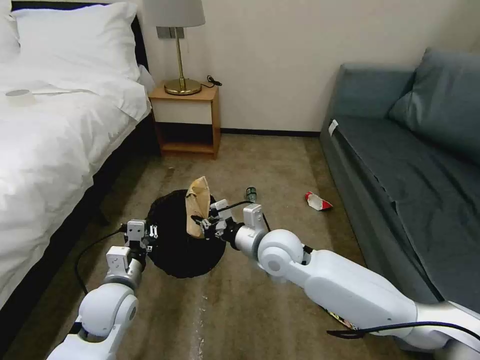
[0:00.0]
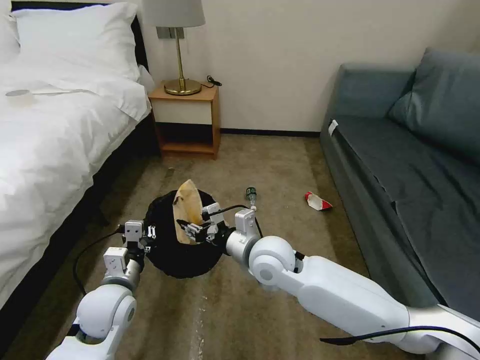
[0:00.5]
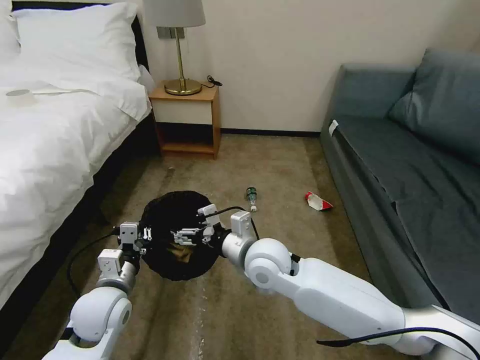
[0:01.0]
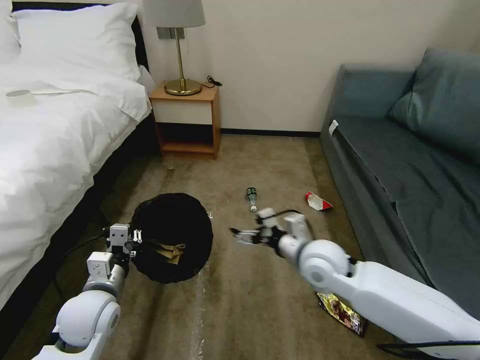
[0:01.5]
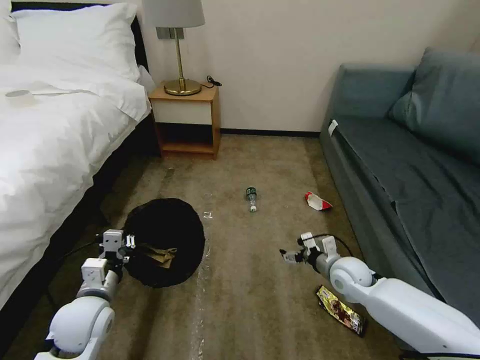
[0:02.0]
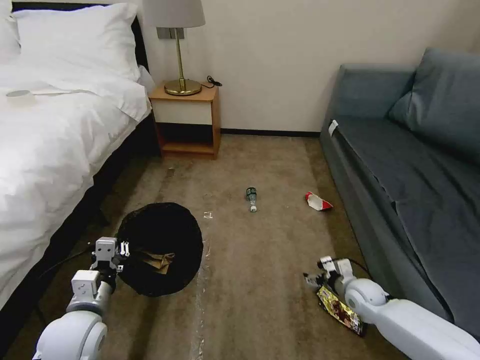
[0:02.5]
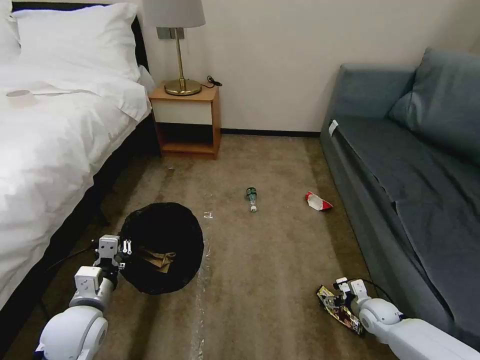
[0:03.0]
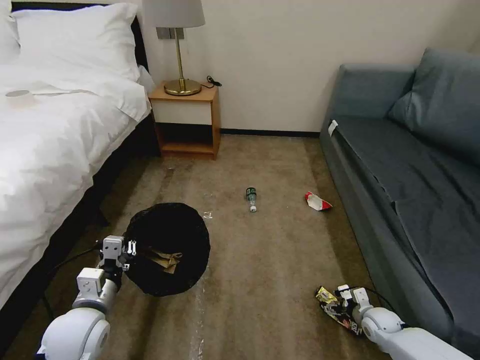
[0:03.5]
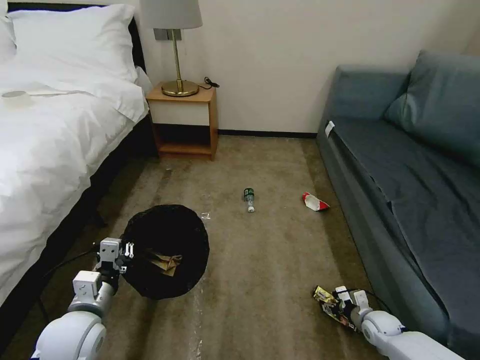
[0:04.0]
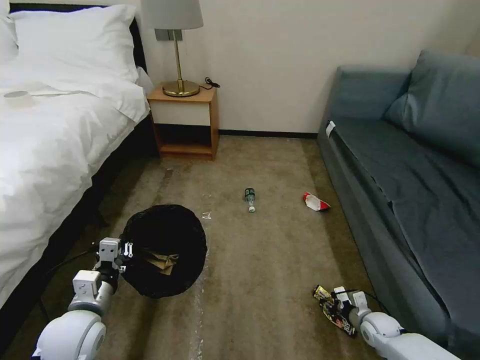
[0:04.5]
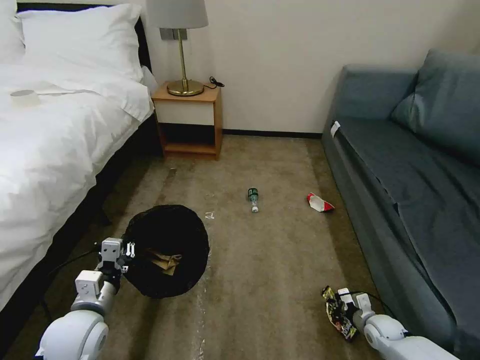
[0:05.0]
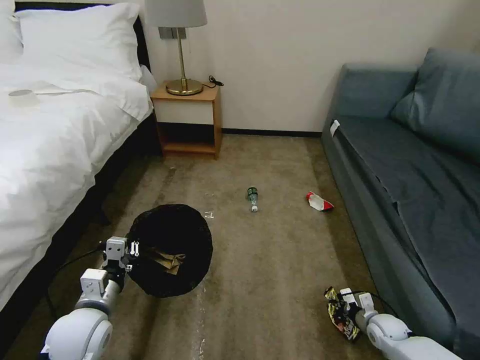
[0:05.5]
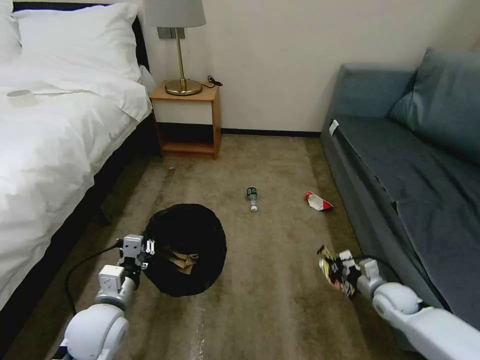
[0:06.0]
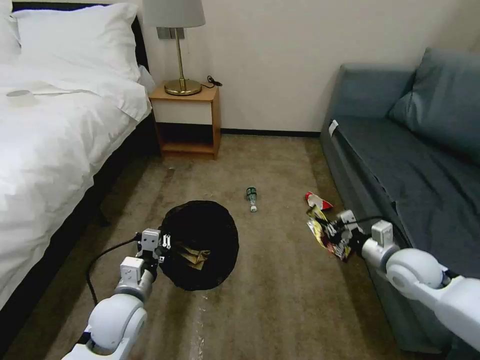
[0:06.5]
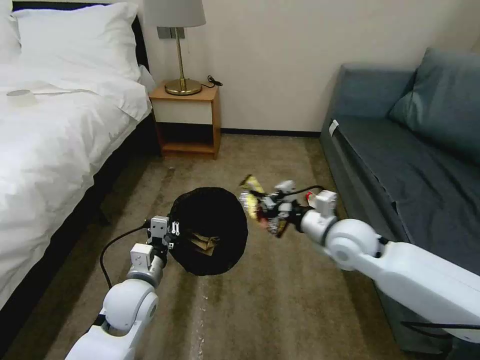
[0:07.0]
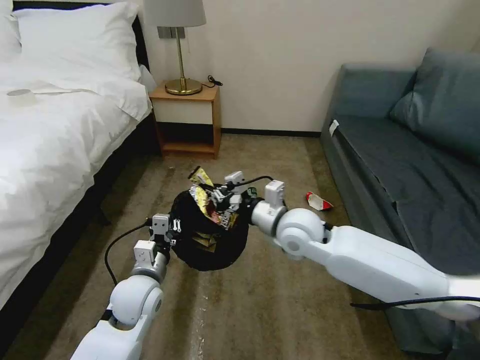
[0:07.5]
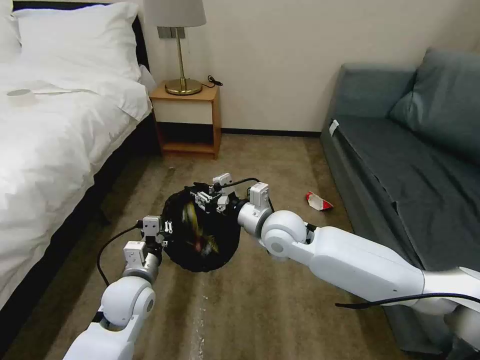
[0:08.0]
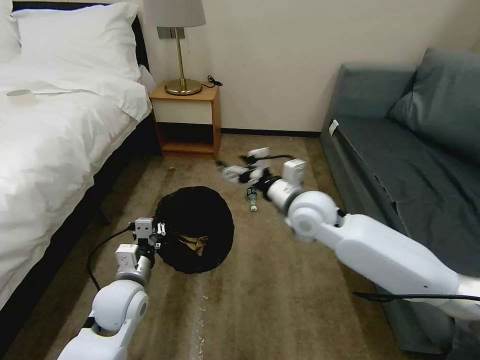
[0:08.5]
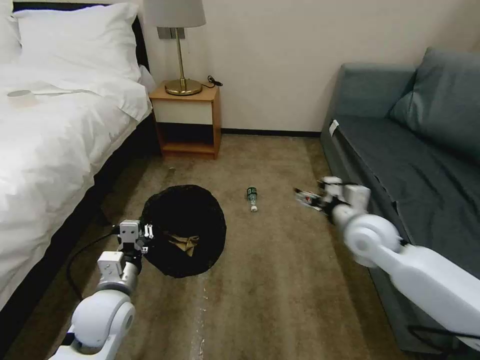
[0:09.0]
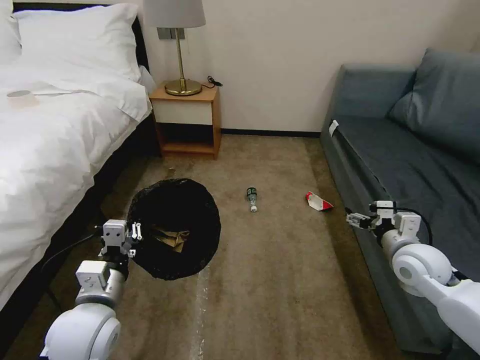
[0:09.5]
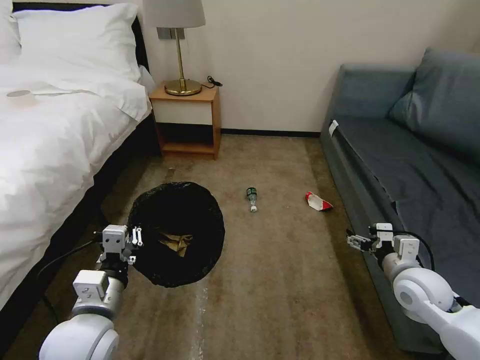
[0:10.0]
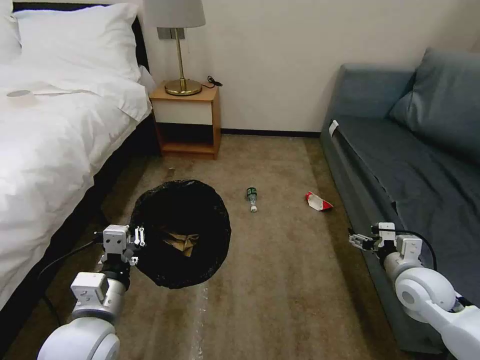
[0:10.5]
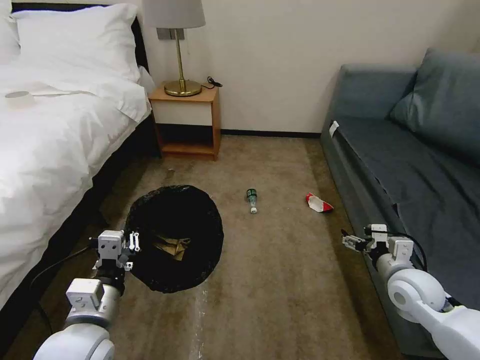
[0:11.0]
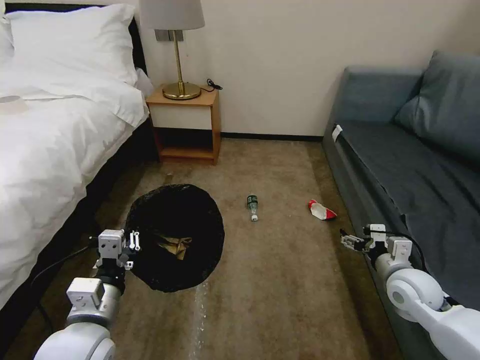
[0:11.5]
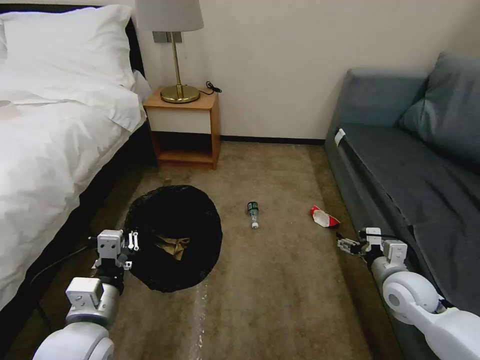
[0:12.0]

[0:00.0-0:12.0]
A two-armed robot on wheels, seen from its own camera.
Task of the whole recording: Pick up the trash bin, then pick up the garbage on the floor and place it into the trash bin.
0:00.0 to 0:02.0: The left gripper changes place by roughly 5 cm. The right gripper moves to the right and downward, approximately 25 cm, and opens.
0:02.0 to 0:04.0: The right gripper is displaced downward, to the right and backward by about 20 cm.
0:04.0 to 0:06.0: The right gripper is displaced upward by roughly 10 cm, and closes its fingers.
0:06.0 to 0:08.0: The left gripper travels forward by roughly 5 cm; the right gripper moves to the left and upward, roughly 40 cm.
0:08.0 to 0:10.0: The right gripper is displaced to the right by roughly 30 cm, and opens. Meanwhile the left gripper moves backward and upward, about 10 cm.
0:10.0 to 0:12.0: There are only small adjustments of the grippers.

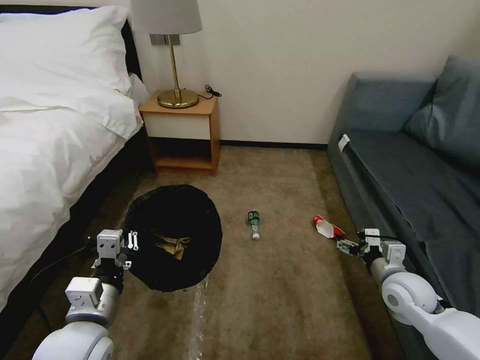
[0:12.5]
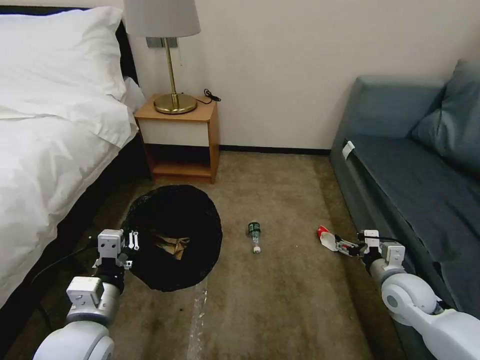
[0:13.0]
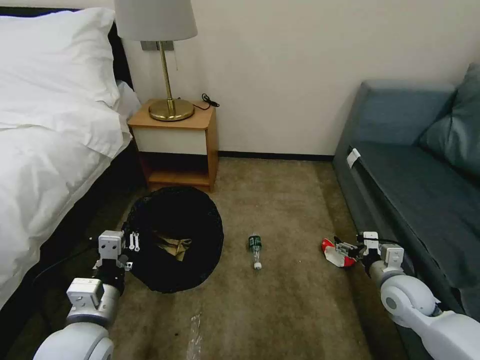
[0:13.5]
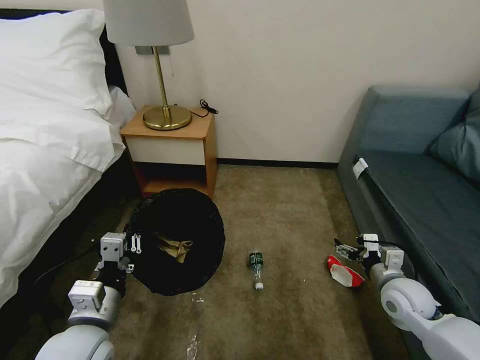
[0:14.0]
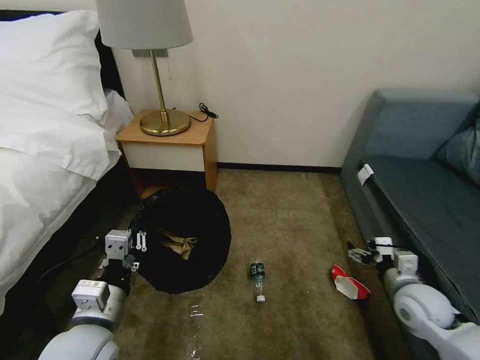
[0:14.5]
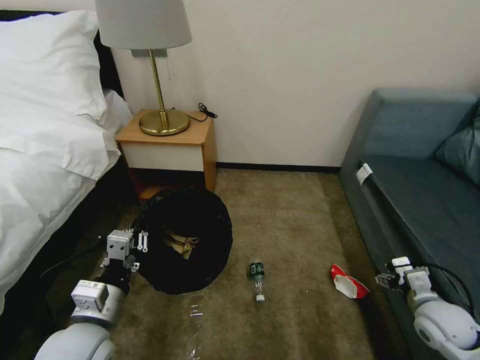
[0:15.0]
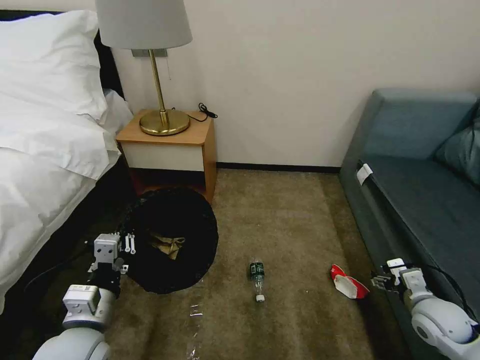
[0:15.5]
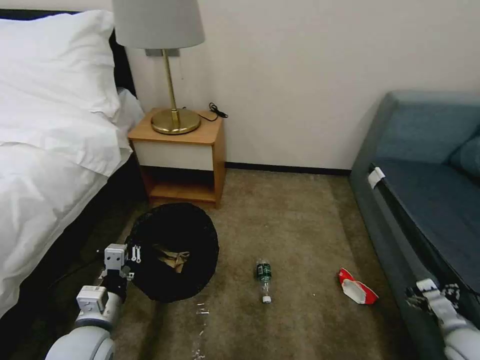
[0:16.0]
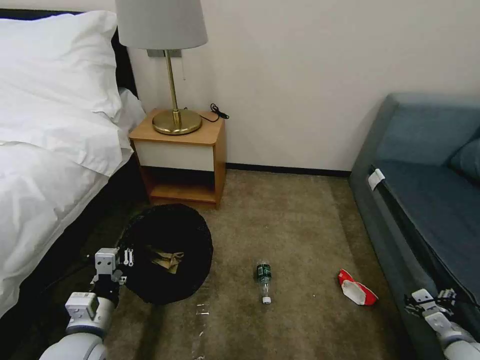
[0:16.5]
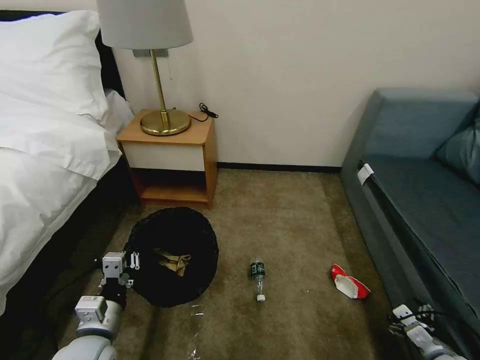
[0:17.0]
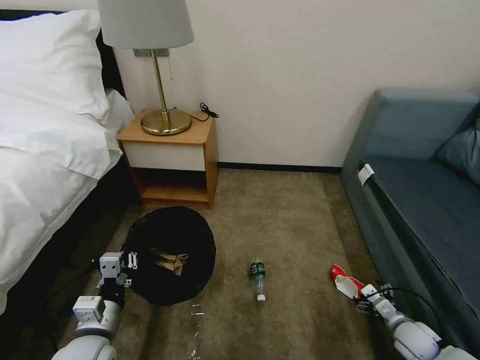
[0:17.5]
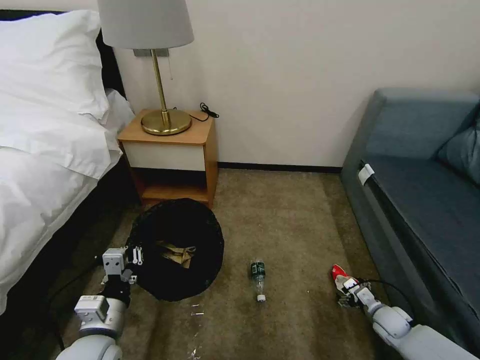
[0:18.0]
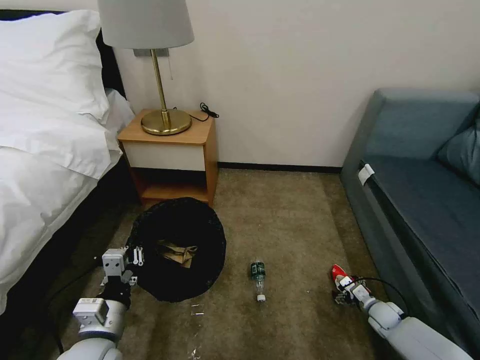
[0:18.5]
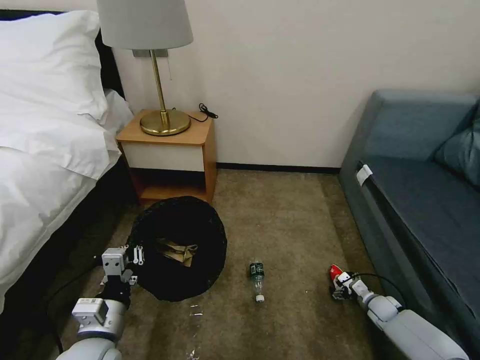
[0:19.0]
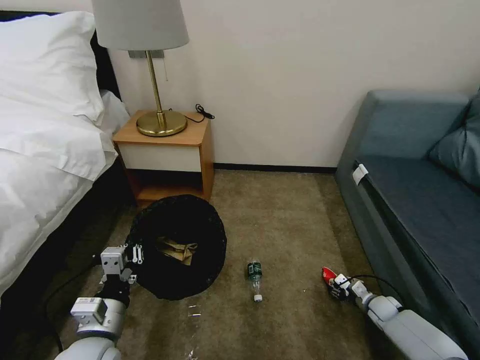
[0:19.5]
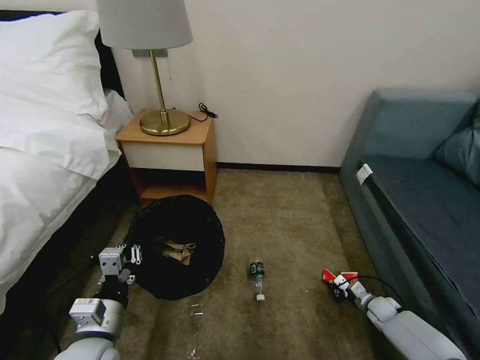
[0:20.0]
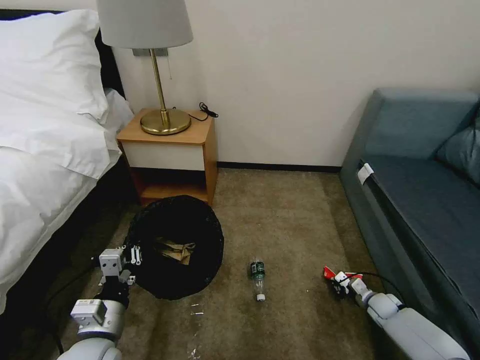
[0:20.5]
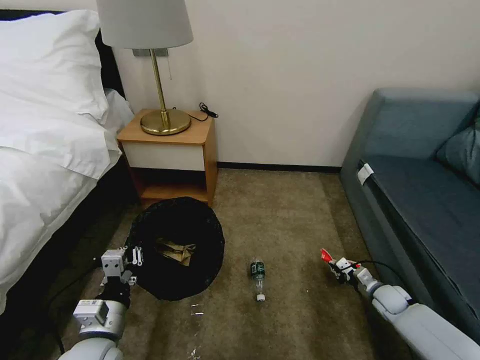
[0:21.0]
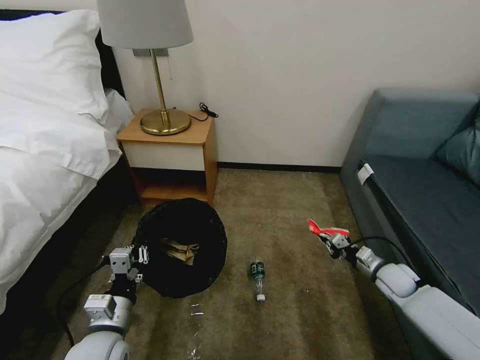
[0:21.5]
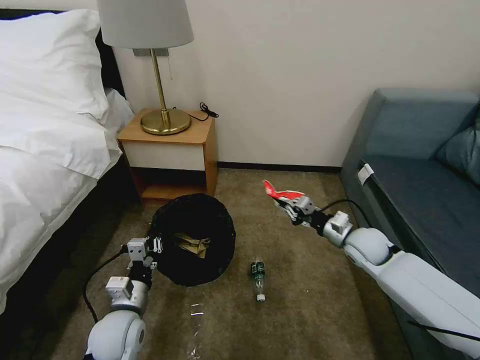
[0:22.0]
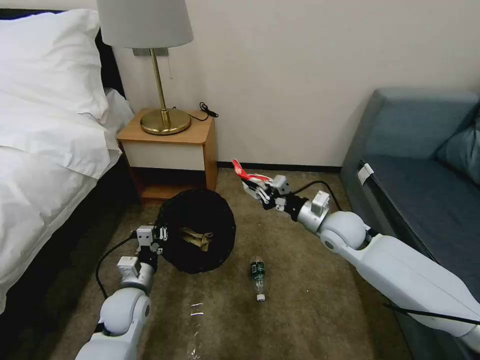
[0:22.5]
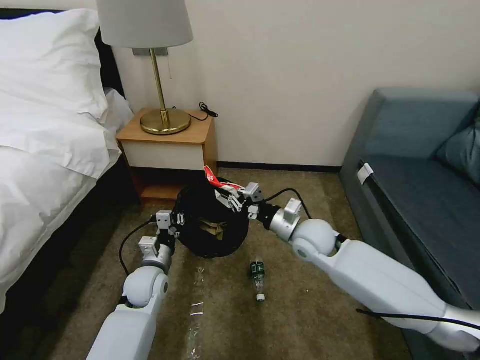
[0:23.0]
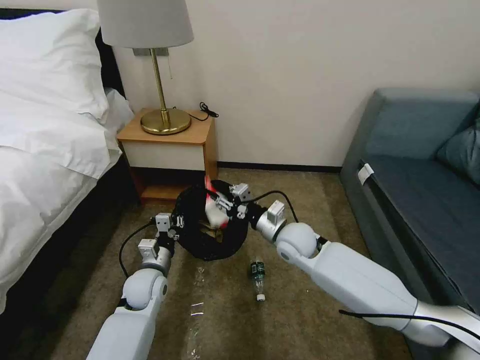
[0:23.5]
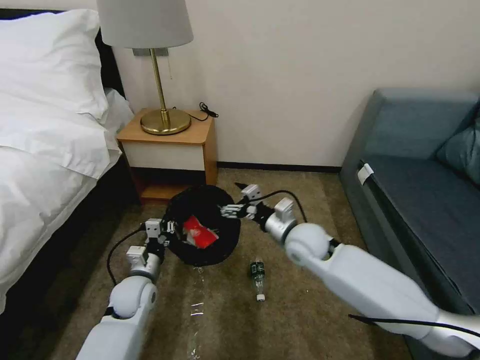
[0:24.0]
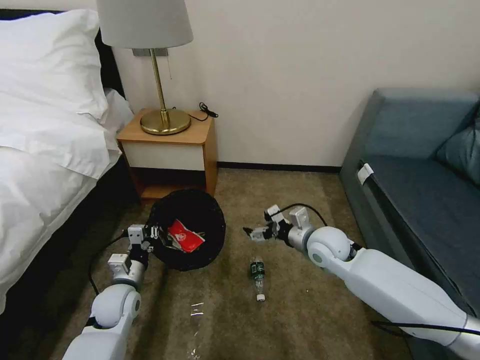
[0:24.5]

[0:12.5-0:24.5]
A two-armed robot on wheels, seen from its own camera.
Task of the whole recording: Pick up the trash bin, then pick up the garbage on the floor and place it into the trash bin.
0:14.5 to 0:16.5: The left gripper goes approximately 5 cm downward, while the right gripper goes some 20 cm to the right, downward and backward.
0:16.5 to 0:18.5: The right gripper travels forward, downward and to the left by about 20 cm.
0:18.5 to 0:20.5: The right gripper closes up.
0:20.5 to 0:22.5: The right gripper is displaced upward and to the left by about 35 cm. Meanwhile the left gripper is displaced forward and downward by about 15 cm.
0:22.5 to 0:24.5: The right gripper goes to the left and returns, roughly 10 cm each way, and opens.

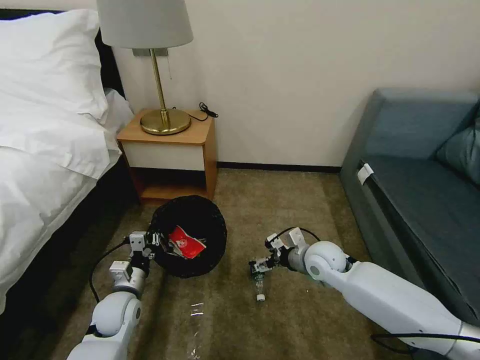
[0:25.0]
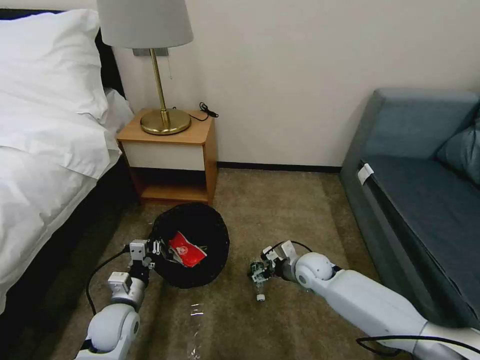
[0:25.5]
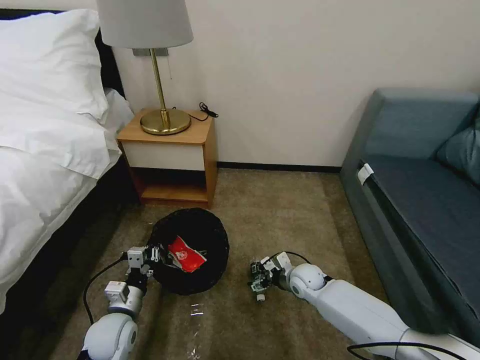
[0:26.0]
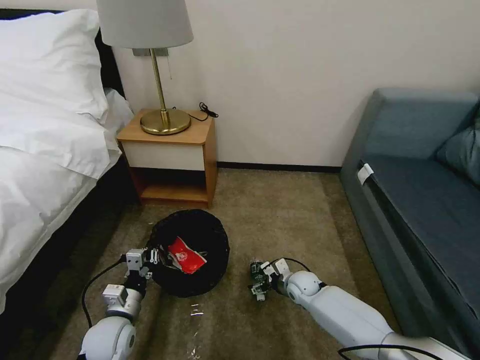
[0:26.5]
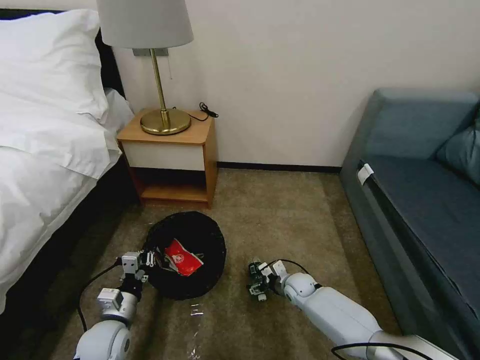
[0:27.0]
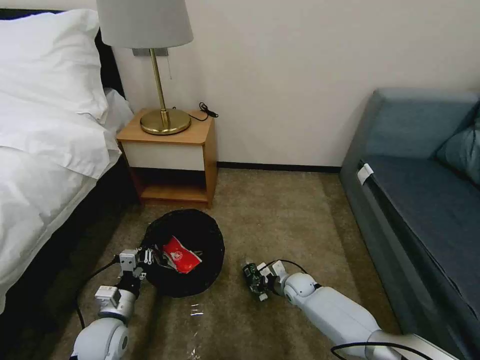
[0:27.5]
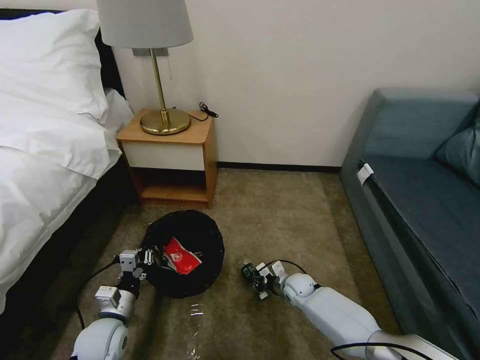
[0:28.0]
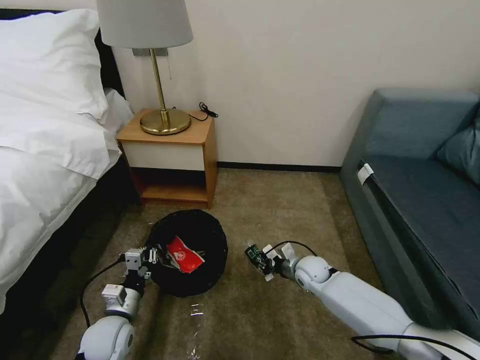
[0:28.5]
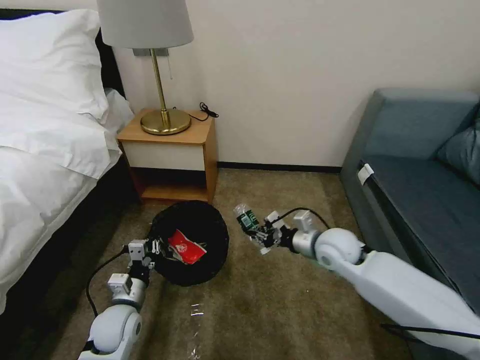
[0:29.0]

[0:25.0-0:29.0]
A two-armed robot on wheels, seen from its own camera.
Task of the whole recording: Pick up the trash bin, then pick up the garbage on the floor and place it into the trash bin.
0:25.0 to 0:27.0: The right gripper moves downward, approximately 20 cm. Meanwhile the left gripper heads backward, covering some 5 cm.
0:27.0 to 0:29.0: The right gripper is displaced upward by roughly 25 cm, and closes.
